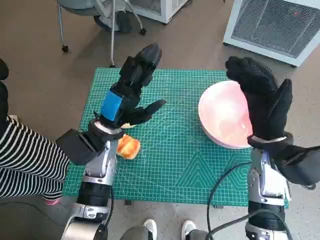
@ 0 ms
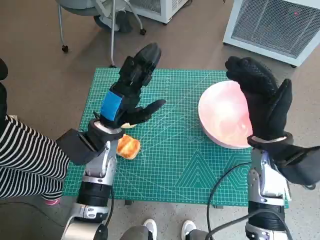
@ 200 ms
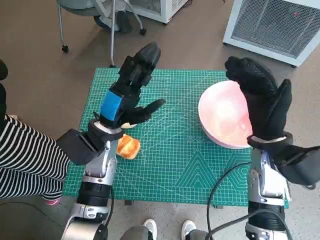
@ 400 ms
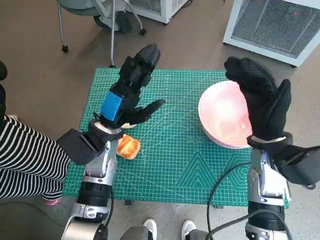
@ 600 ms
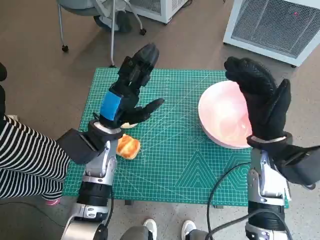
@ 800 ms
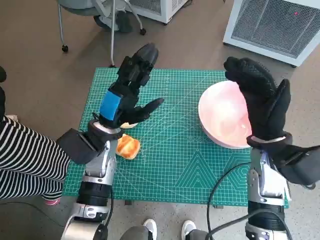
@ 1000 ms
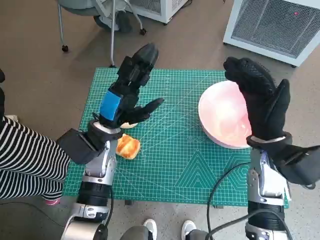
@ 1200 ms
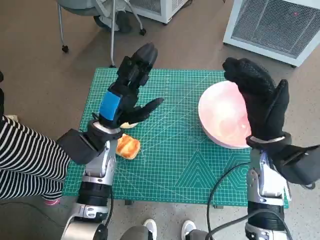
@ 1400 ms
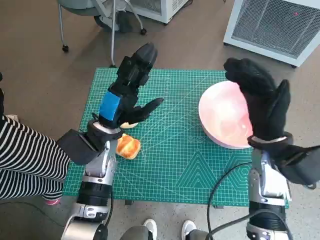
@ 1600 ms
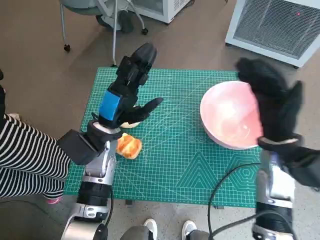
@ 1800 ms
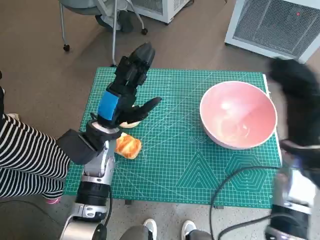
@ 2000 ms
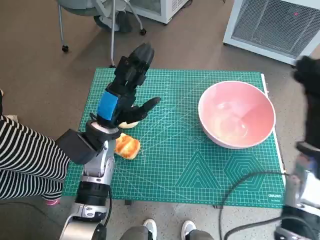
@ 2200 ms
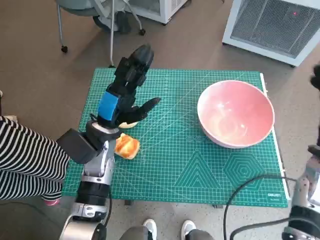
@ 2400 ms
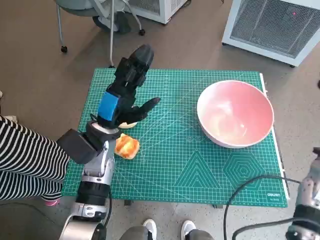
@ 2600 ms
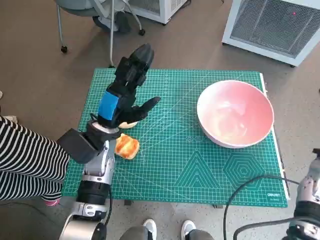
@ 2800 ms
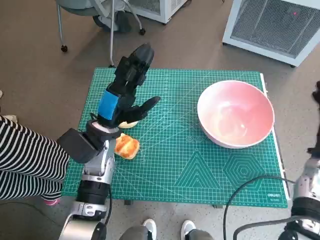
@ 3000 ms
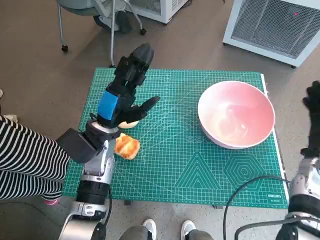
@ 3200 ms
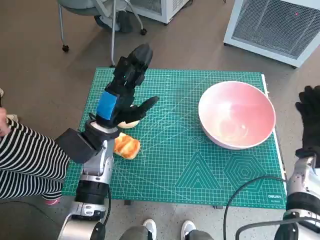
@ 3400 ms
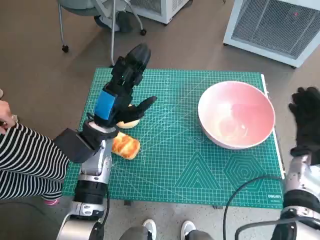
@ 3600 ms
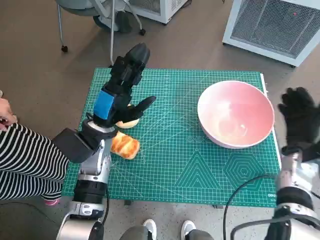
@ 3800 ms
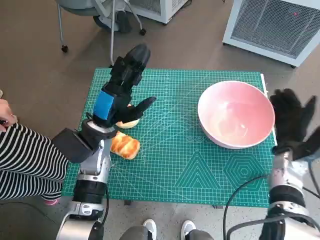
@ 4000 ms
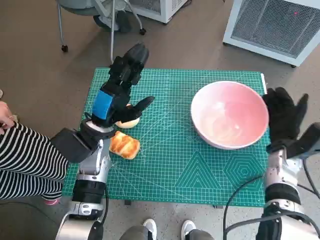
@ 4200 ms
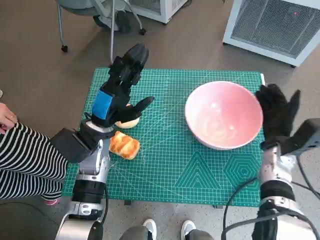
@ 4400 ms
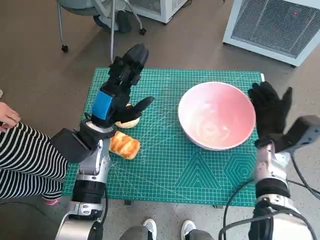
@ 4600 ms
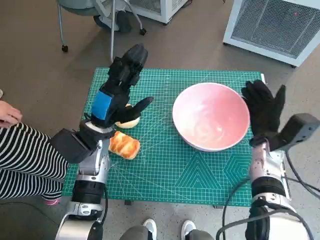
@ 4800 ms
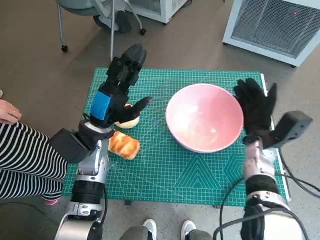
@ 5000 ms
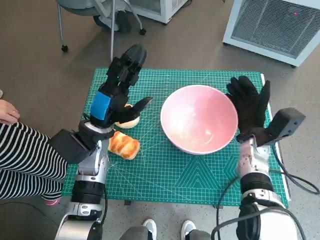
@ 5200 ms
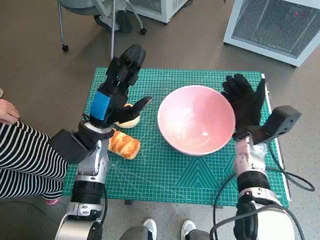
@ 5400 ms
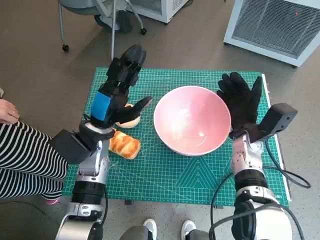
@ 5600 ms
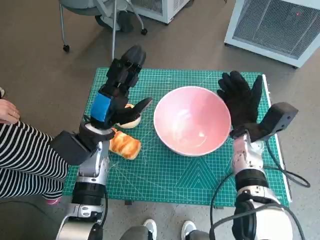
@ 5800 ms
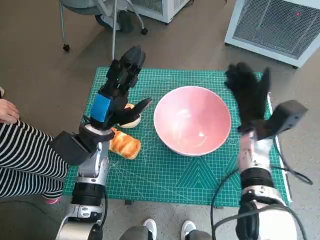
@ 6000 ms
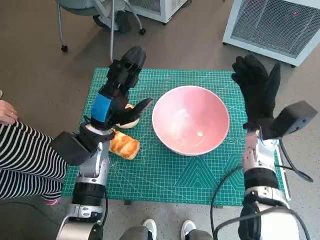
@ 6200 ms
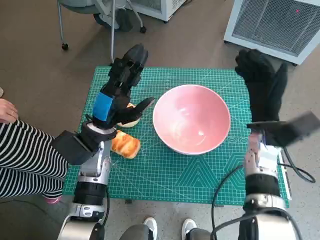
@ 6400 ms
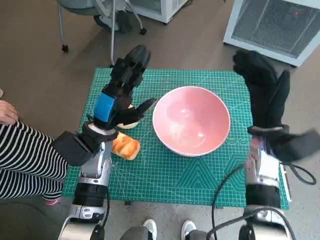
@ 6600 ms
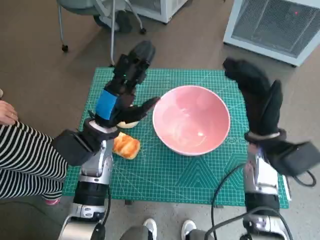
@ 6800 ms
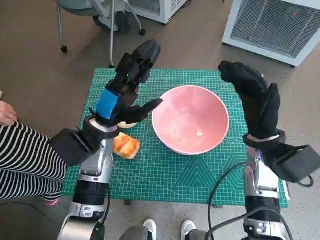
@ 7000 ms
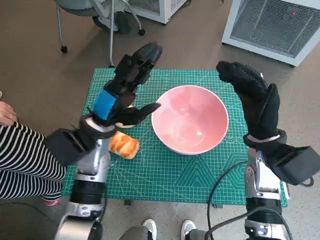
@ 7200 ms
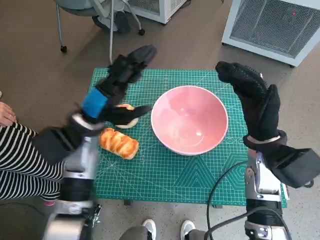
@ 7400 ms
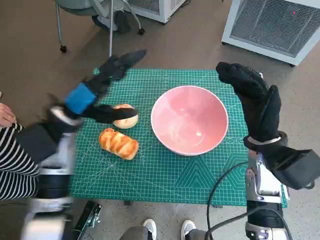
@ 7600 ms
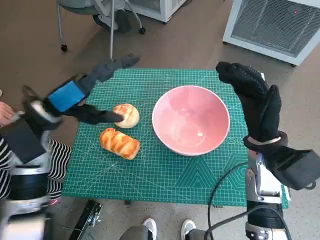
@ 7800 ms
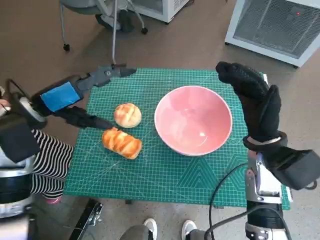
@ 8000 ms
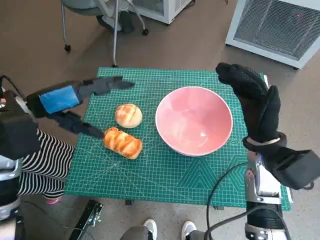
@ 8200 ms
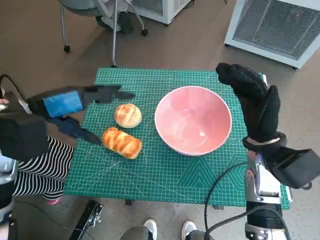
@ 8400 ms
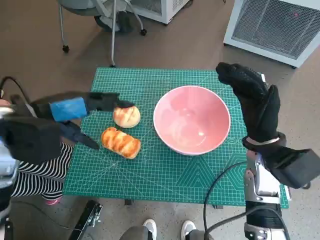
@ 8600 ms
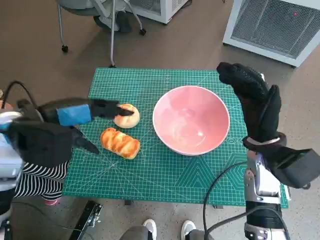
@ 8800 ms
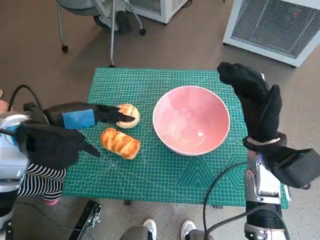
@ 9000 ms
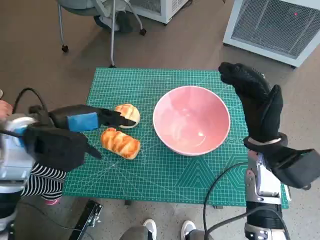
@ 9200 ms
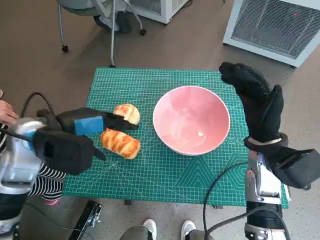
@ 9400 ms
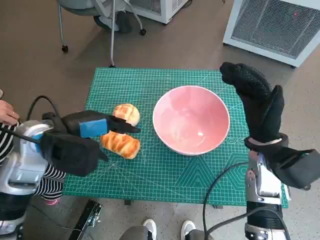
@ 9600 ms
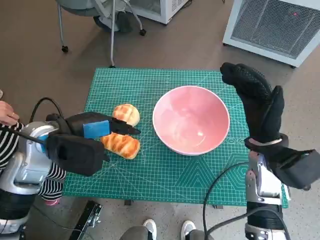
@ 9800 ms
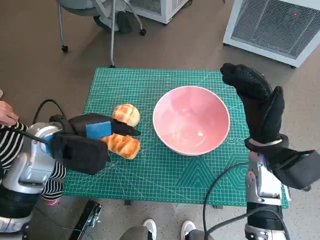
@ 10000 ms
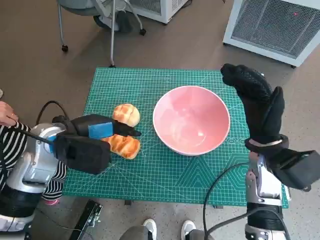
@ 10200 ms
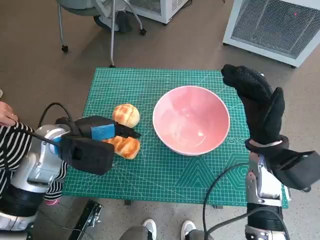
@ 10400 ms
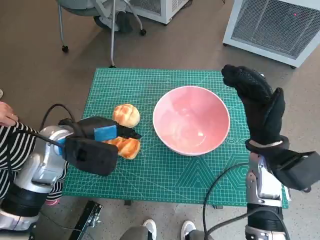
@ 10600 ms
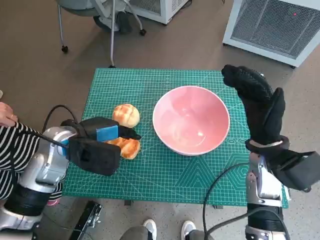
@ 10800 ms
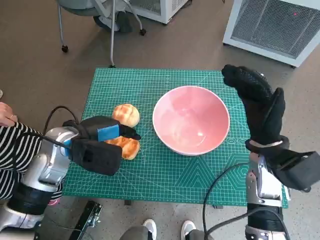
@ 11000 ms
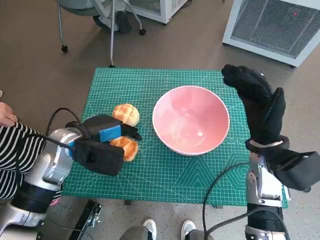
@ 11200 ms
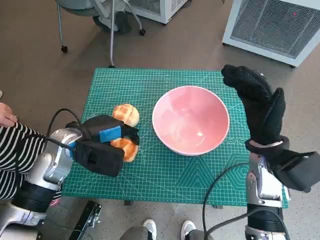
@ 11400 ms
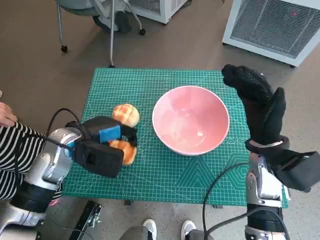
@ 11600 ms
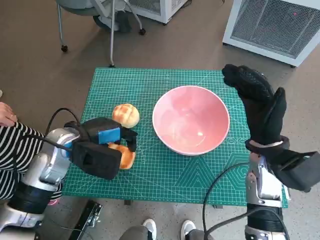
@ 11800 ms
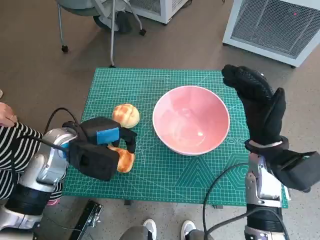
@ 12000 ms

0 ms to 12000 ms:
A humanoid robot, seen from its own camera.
Task of the whole recording: Push the bowl into the center of the table and put the bread into the bowl.
Step, 0 ms to 6000 ms: Move the pink bowl to the center of table with right hand.
1600 ms to 3000 ms: The right hand heads to the right, covering some 10 cm.
3000 ms to 4400 ms: The right hand goes about 5 cm to the left.
4400 ms to 6000 ms: The right hand is displaced to the left by approximately 5 cm.
6000 ms to 7600 ms: The left hand goes some 5 cm upward. Meanwhile the right hand heads upward and backward, covering about 10 cm.
7600 ms to 9000 ms: The left hand shifts roughly 5 cm upward.
9000 ms to 10400 ms: The left hand is displaced downward by some 5 cm.
10400 ms to 12000 ms: The hands make only small movements.

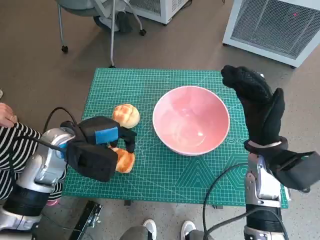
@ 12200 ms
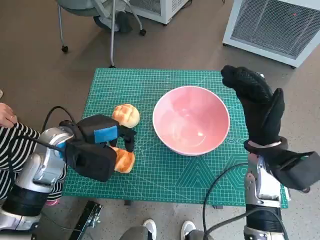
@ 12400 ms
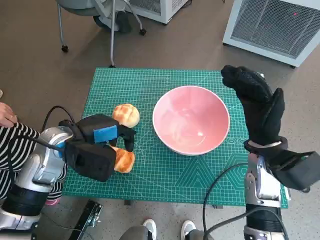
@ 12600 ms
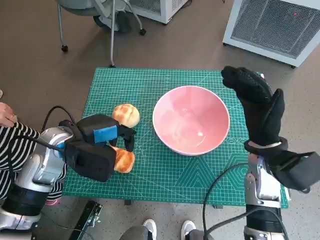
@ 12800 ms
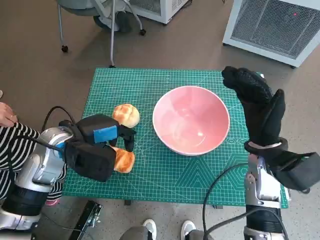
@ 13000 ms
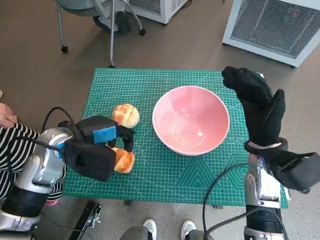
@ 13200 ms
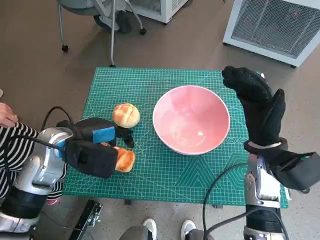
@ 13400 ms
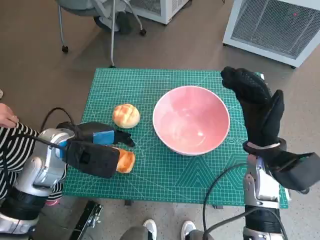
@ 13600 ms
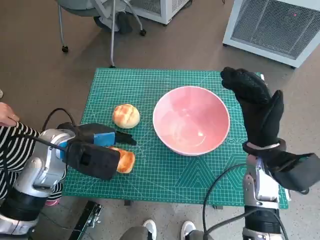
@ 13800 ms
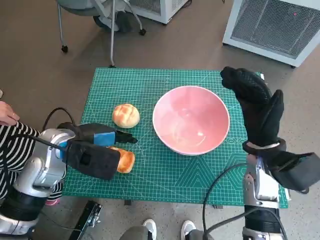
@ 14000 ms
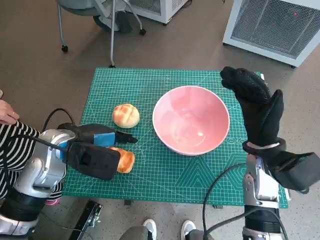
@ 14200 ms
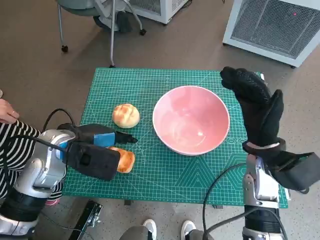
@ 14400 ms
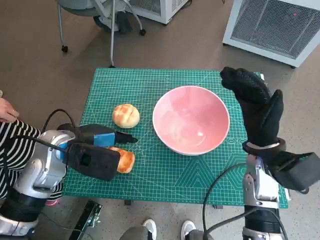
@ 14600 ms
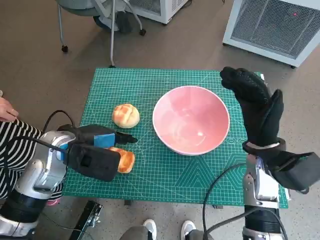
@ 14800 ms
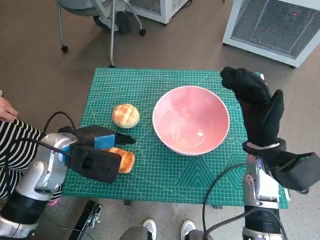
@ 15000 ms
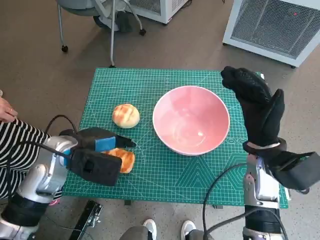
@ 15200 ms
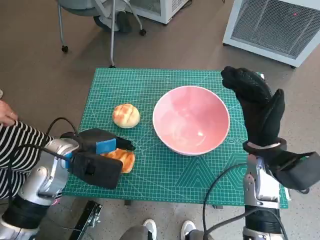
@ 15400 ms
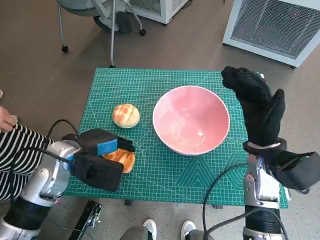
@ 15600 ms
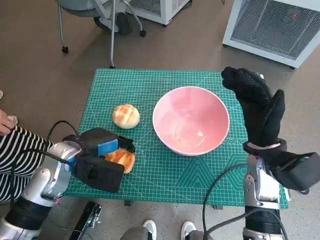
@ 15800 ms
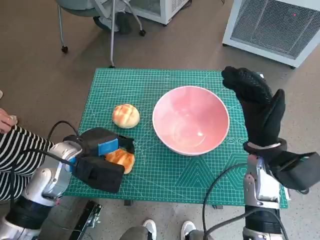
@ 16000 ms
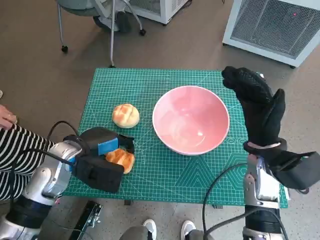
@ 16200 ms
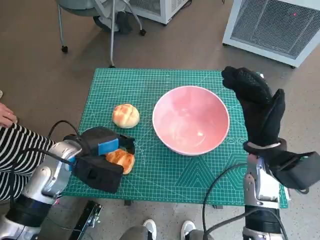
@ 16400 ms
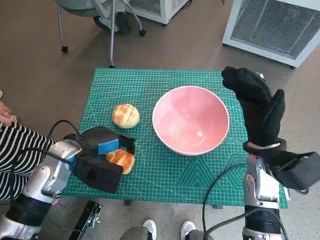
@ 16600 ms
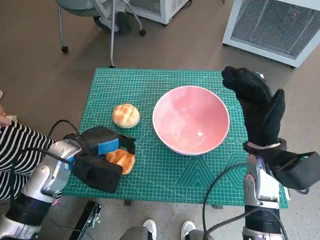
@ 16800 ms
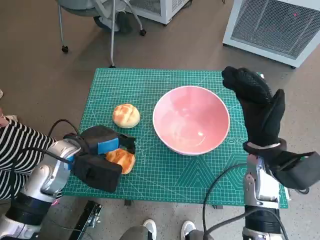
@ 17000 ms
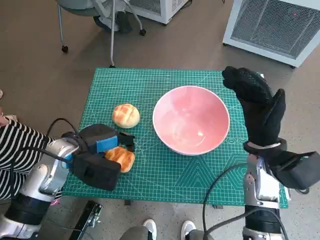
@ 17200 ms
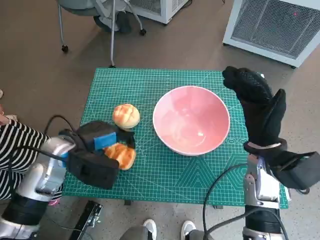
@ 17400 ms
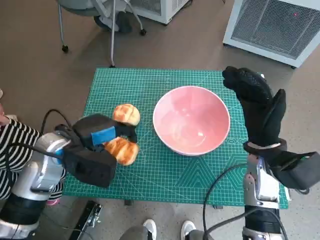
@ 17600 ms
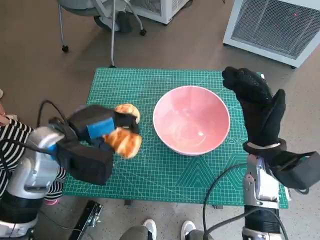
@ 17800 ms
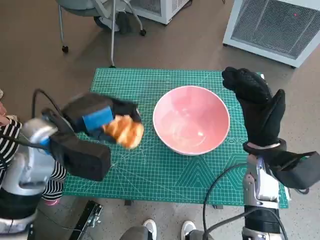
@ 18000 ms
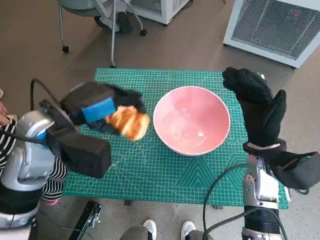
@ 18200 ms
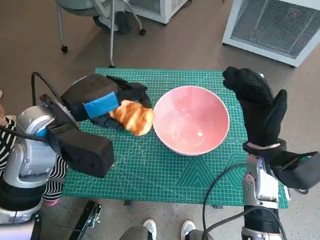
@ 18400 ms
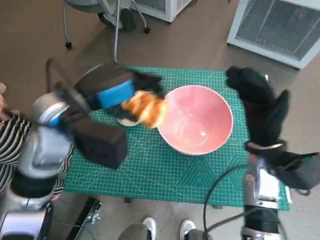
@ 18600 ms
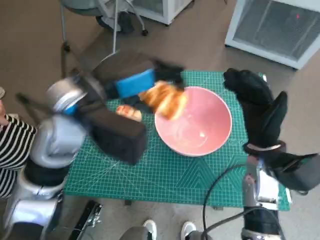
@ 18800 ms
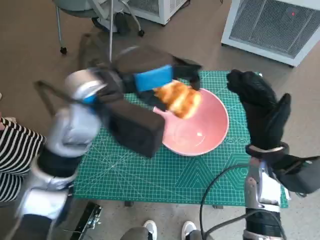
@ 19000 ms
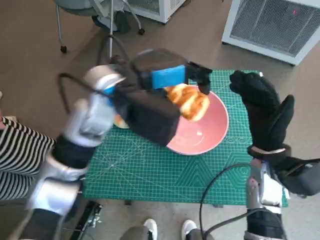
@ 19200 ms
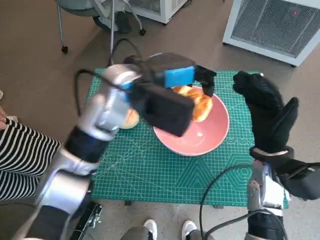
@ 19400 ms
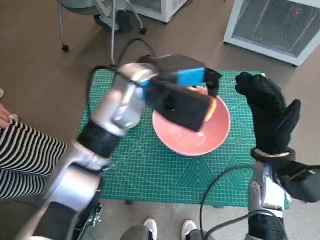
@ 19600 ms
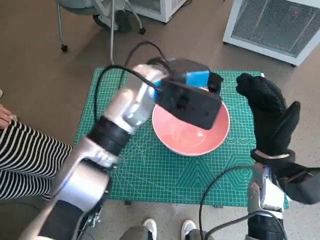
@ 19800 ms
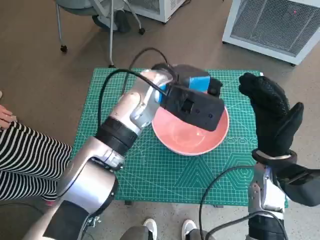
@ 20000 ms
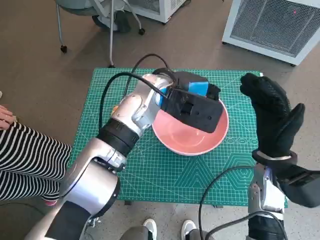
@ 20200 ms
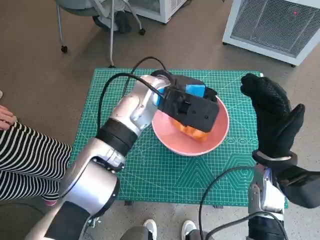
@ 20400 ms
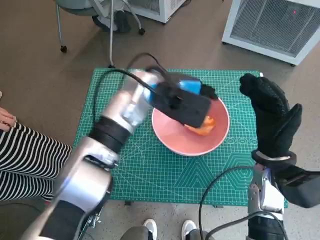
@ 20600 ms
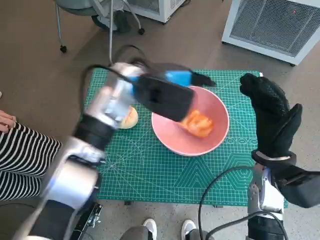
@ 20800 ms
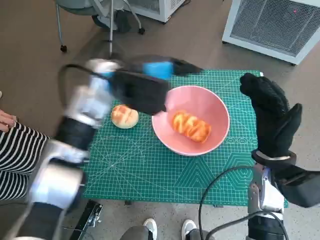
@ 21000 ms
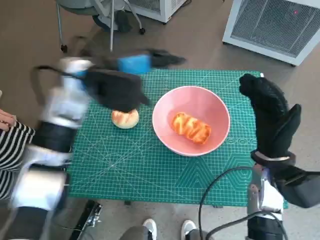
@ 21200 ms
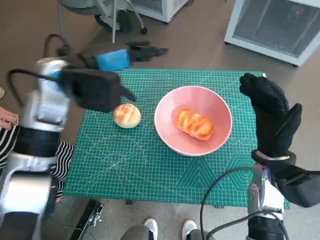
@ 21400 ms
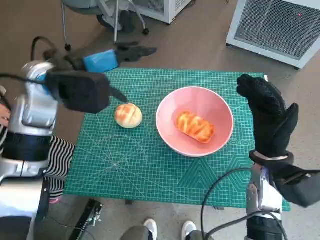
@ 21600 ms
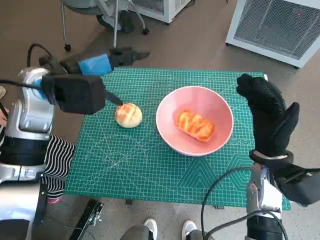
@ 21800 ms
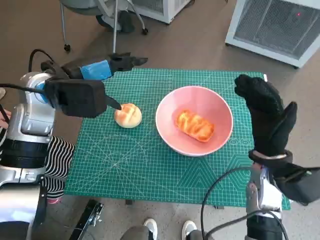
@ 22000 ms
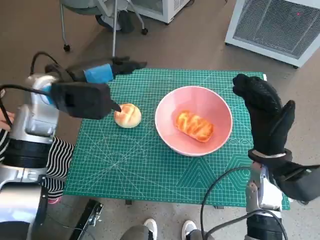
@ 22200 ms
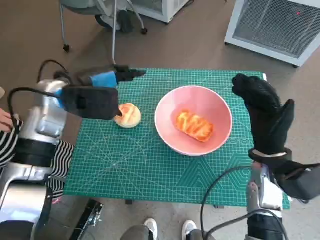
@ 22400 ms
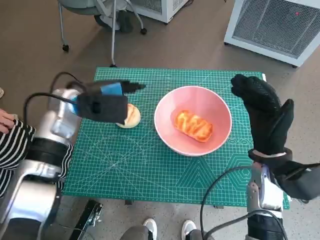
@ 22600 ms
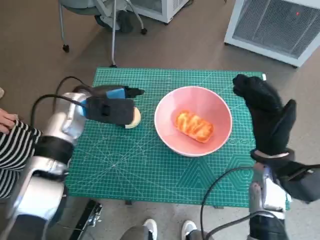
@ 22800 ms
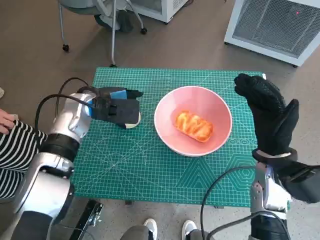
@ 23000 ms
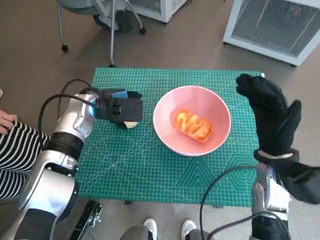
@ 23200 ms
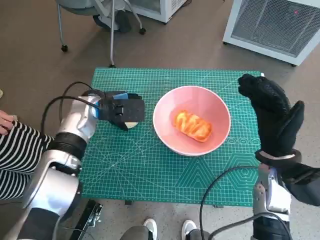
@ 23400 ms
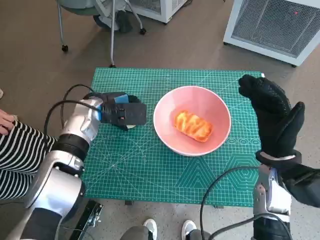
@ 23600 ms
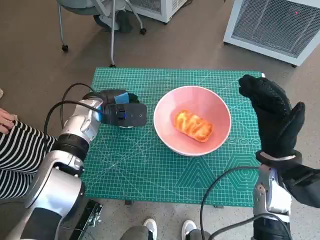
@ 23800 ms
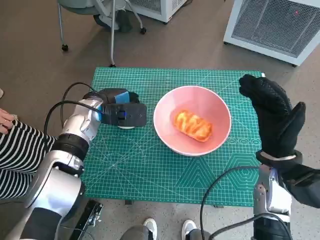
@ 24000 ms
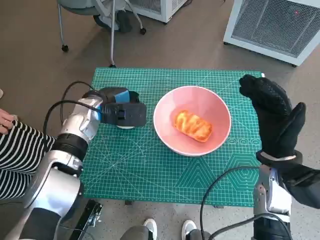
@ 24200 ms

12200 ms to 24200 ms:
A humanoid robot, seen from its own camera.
Task of the whole recording: Push the bowl into the center of the table and put the bread into the bowl.
Step, 12200 ms to 16600 ms: Grasp the long bread with left hand.
Step, 16800 ms to 20800 ms: Place the long bread in pink bowl with left hand.
Step, 21000 ms to 24000 ms: Grasp the round bread with left hand.
12200 ms to 16600 ms: The hands stay close to where they were, moving slightly.
16600 ms to 18200 ms: The left hand heads upward, covering approximately 10 cm.
18200 ms to 19800 ms: The left hand heads to the right and forward, covering about 15 cm.
19800 ms to 21200 ms: The left hand shifts some 10 cm to the left.
21200 ms to 22600 ms: The left hand travels downward and to the left by about 10 cm.
22600 ms to 24200 ms: The left hand heads downward, covering some 5 cm.
